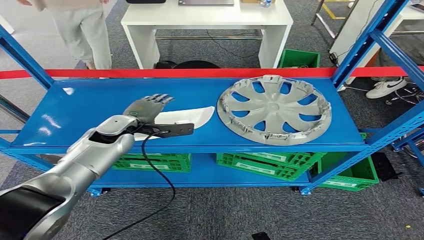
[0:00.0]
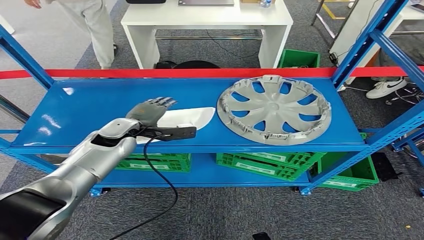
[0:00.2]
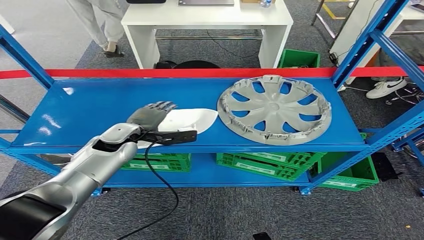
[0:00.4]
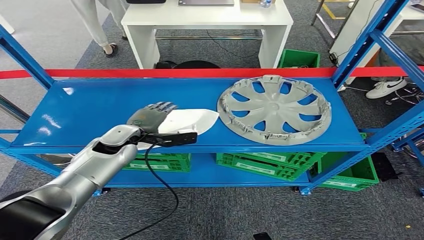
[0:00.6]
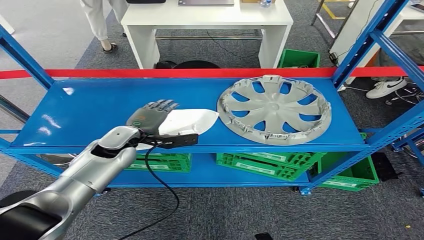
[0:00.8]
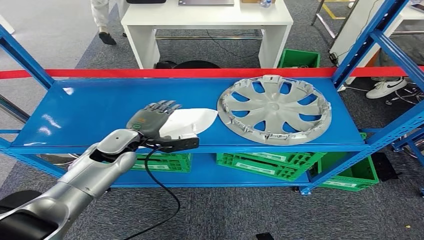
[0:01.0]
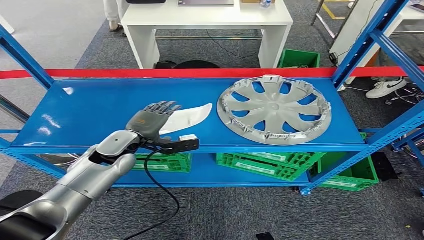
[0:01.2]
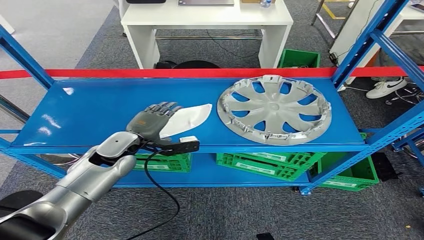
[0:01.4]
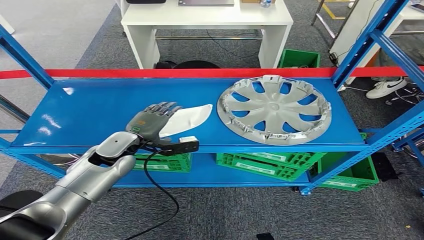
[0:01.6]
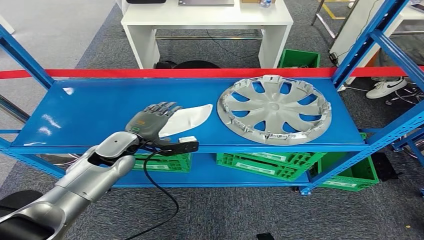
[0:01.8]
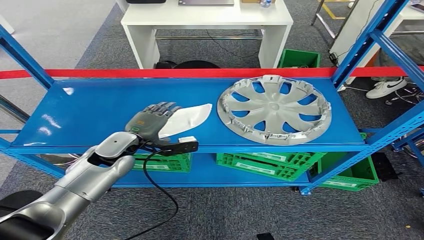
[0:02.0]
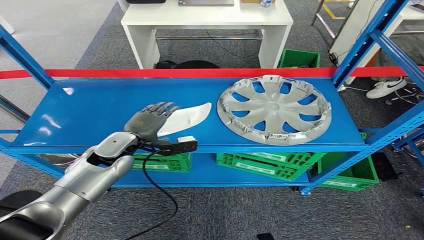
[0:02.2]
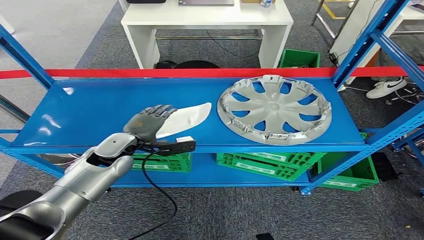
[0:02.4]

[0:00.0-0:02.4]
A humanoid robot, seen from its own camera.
Step, 0:00.0 to 0:02.4: Pick up the small component from the shelf.
0:00.0 to 0:01.2: The left hand shifts by some 5 cm.
0:01.2 to 0:02.4: Both hands stay put.
